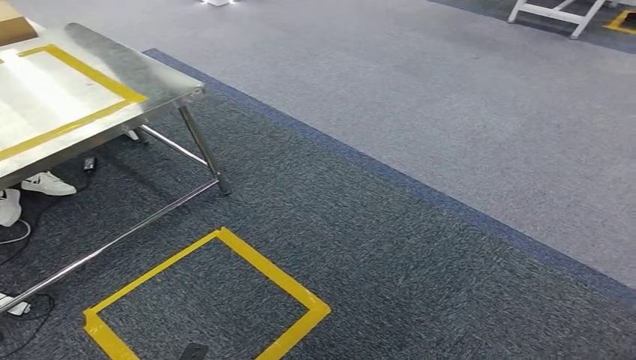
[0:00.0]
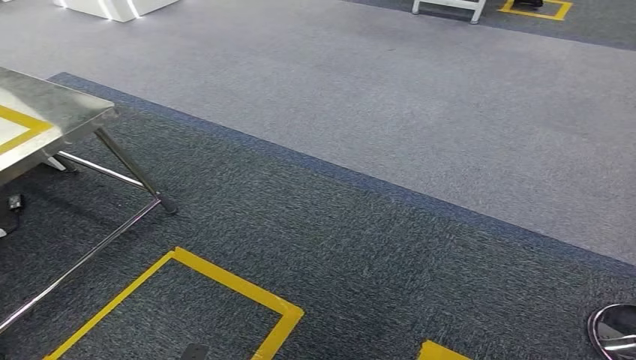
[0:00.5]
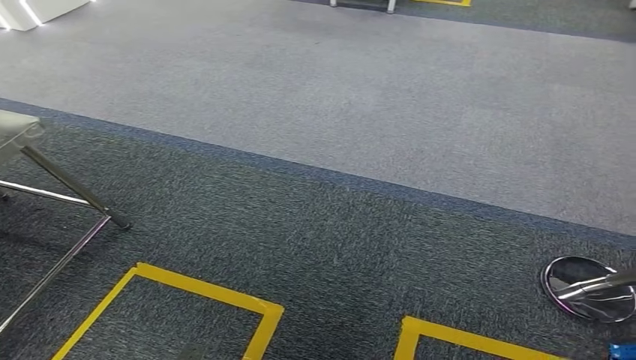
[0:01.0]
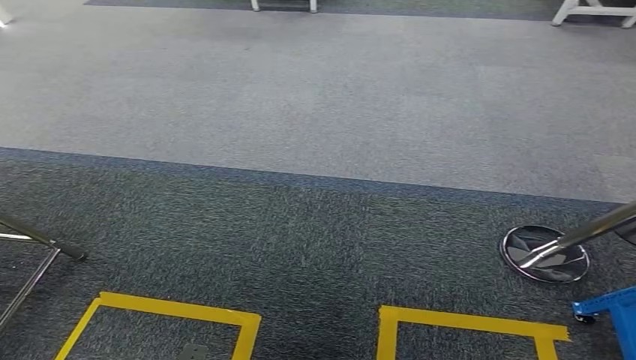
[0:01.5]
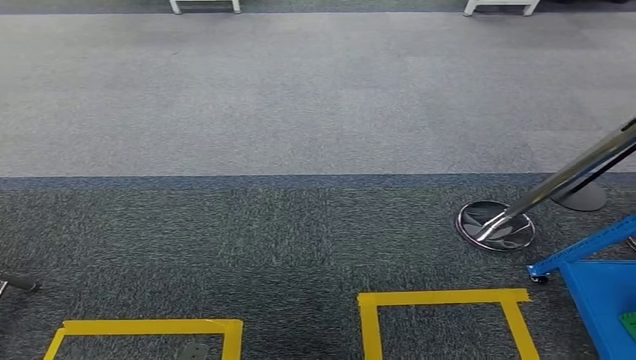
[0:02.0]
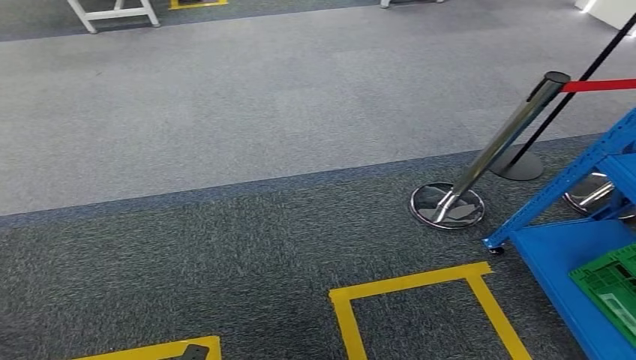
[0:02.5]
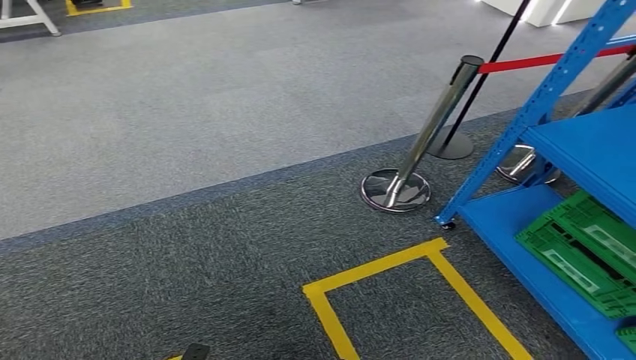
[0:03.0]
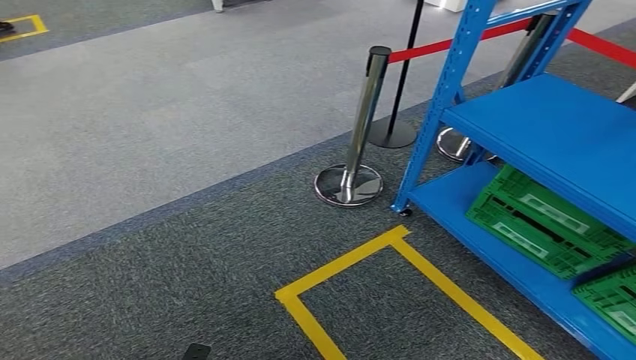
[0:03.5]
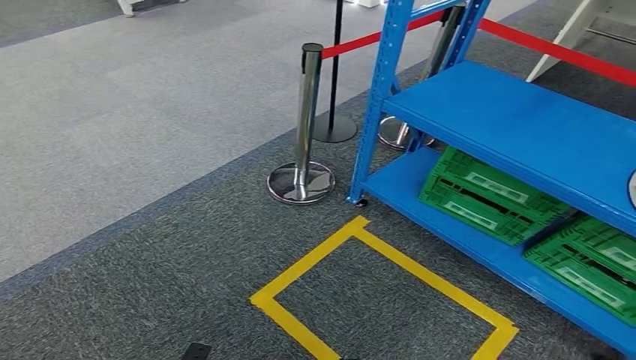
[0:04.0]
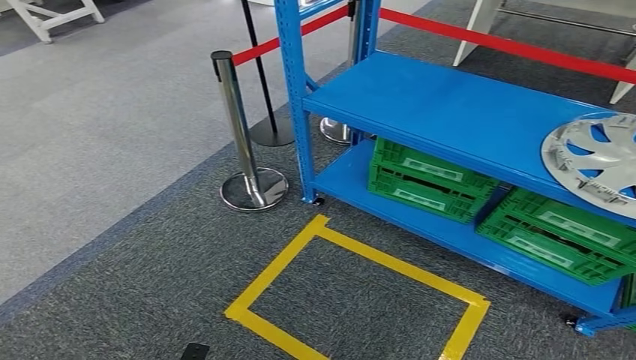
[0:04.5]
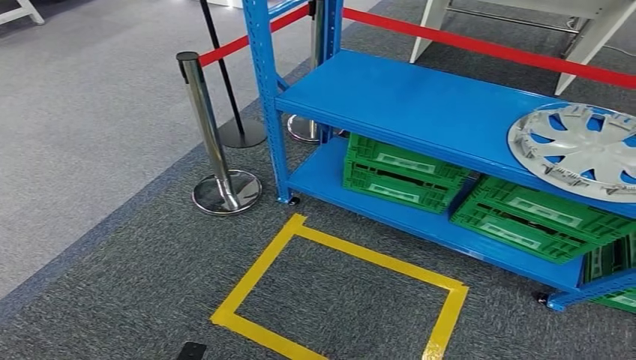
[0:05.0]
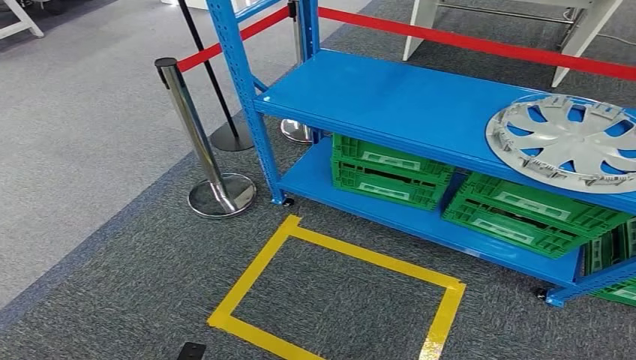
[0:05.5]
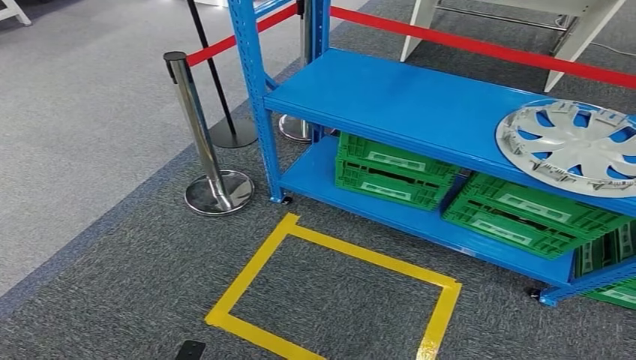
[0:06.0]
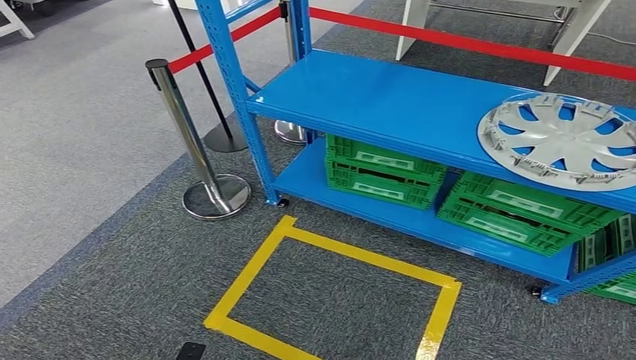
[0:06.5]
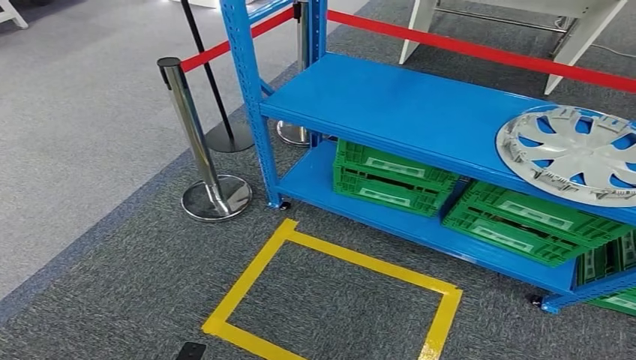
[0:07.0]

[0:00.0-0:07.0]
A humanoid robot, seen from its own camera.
Step, 0:00.0 to 0:07.0: Return to the initial position at the workbench.
